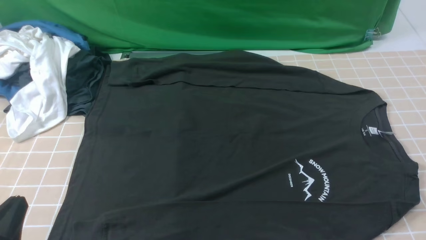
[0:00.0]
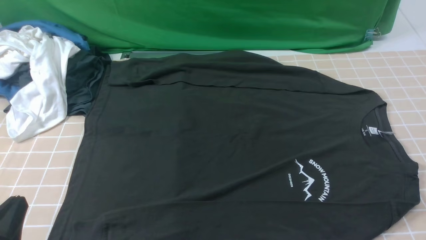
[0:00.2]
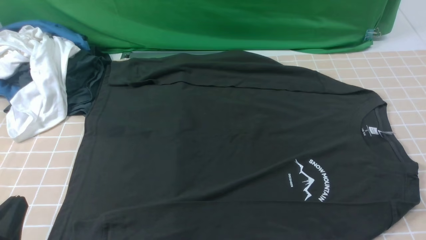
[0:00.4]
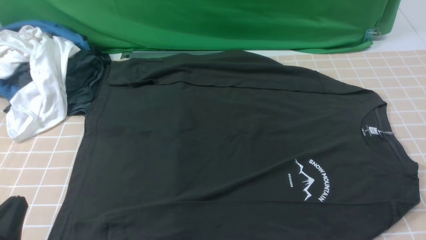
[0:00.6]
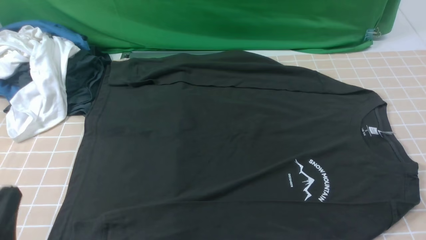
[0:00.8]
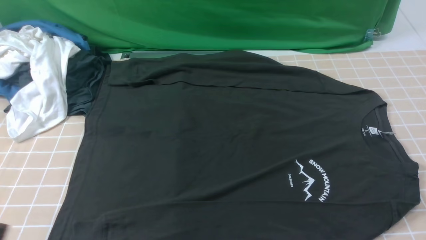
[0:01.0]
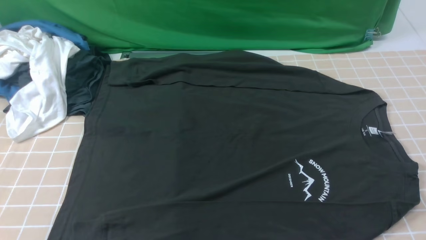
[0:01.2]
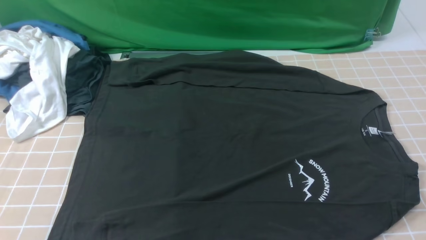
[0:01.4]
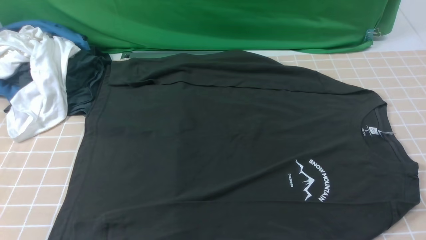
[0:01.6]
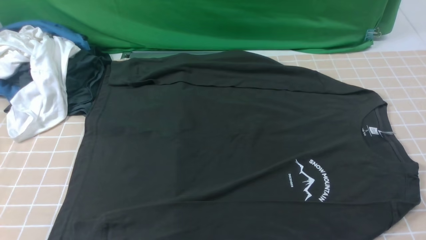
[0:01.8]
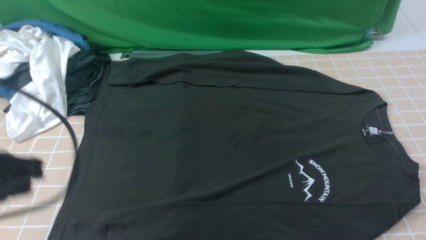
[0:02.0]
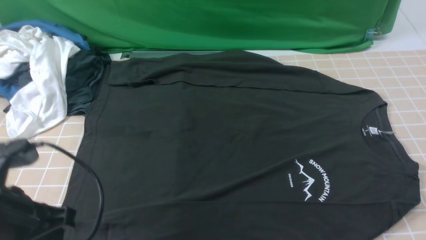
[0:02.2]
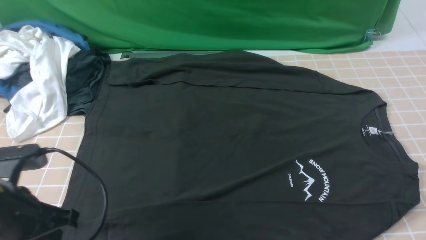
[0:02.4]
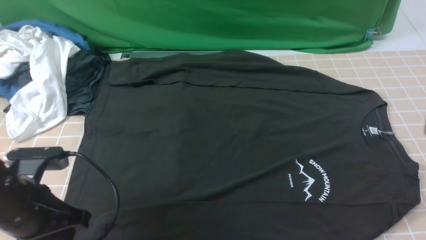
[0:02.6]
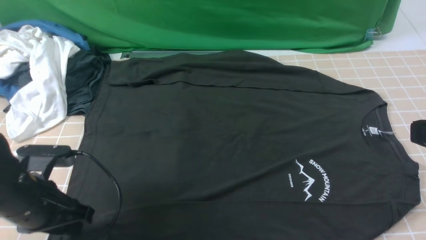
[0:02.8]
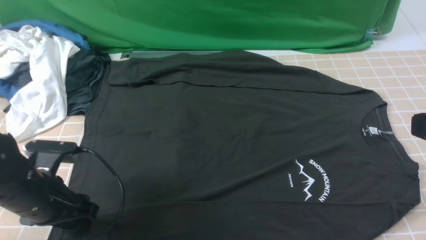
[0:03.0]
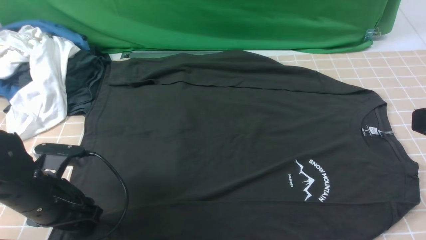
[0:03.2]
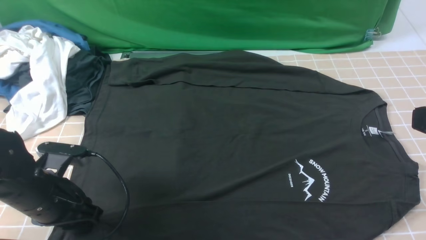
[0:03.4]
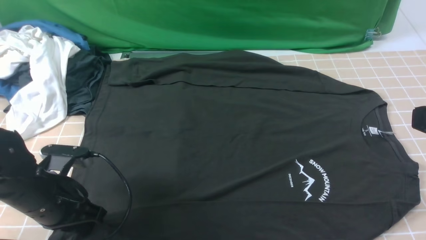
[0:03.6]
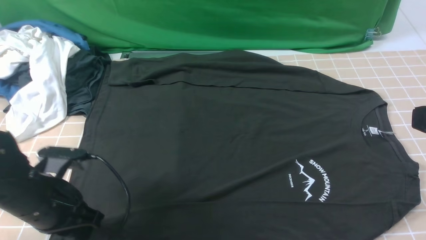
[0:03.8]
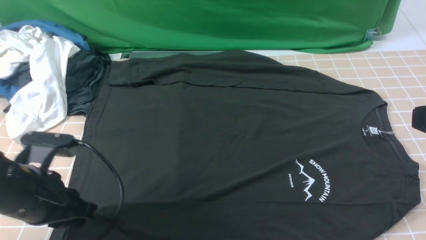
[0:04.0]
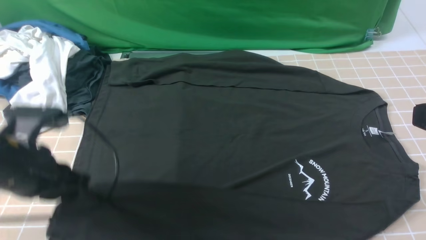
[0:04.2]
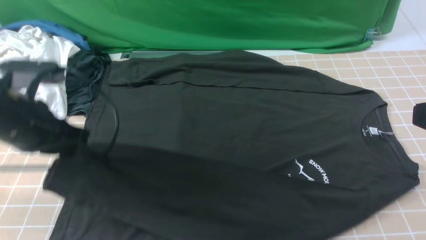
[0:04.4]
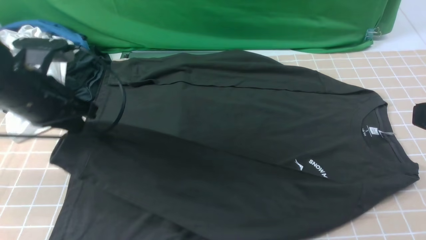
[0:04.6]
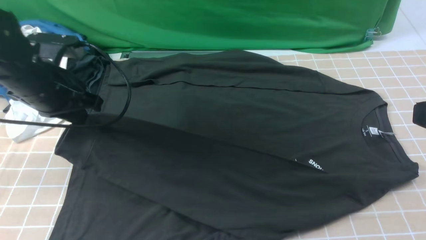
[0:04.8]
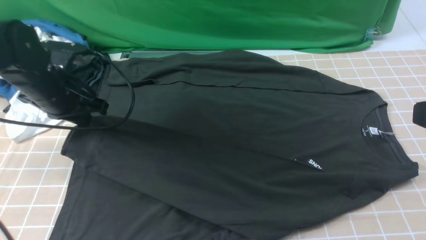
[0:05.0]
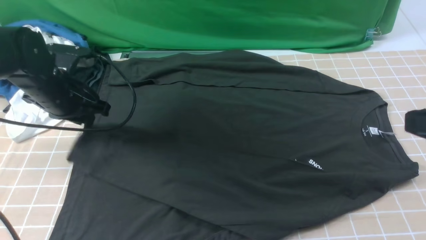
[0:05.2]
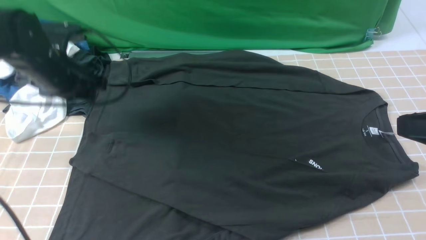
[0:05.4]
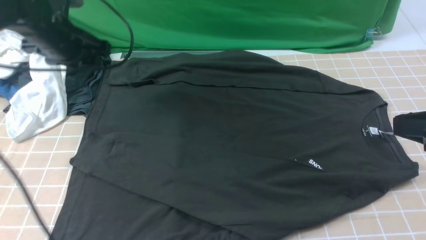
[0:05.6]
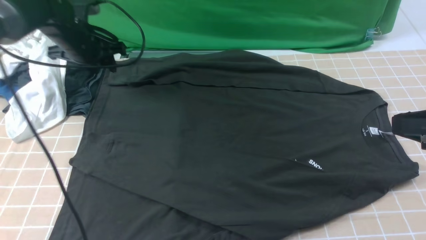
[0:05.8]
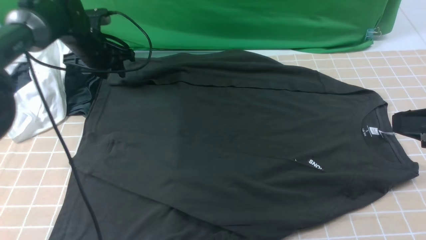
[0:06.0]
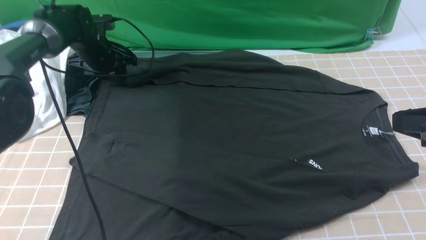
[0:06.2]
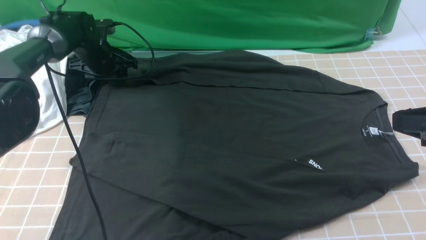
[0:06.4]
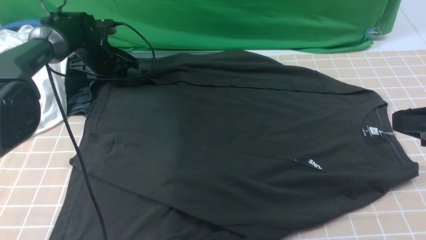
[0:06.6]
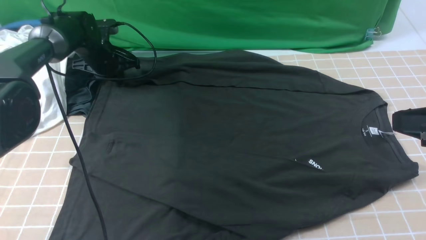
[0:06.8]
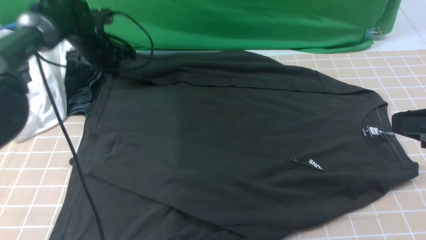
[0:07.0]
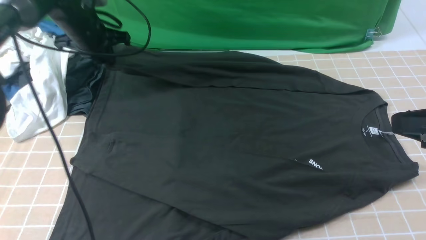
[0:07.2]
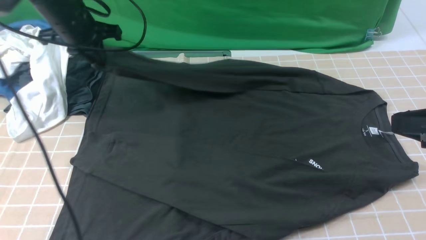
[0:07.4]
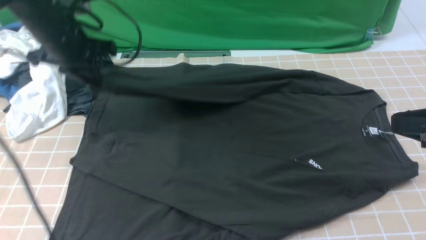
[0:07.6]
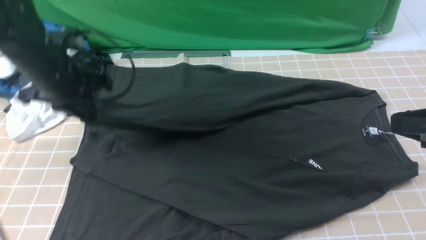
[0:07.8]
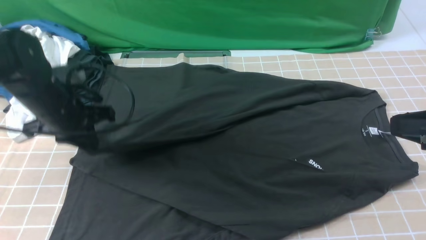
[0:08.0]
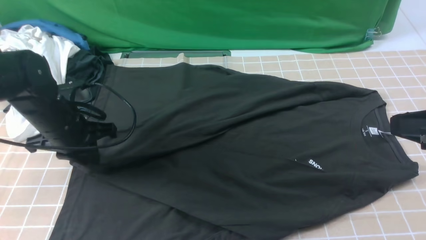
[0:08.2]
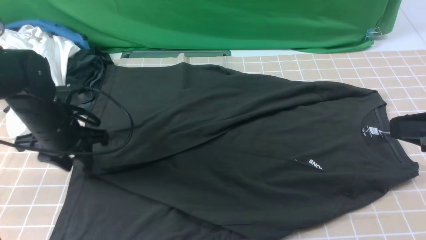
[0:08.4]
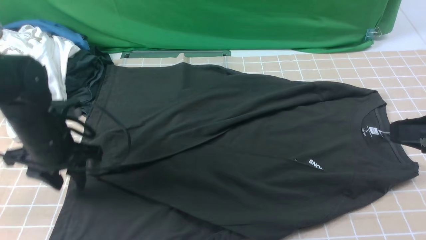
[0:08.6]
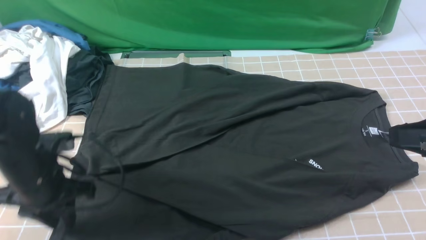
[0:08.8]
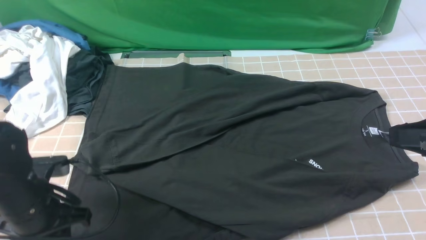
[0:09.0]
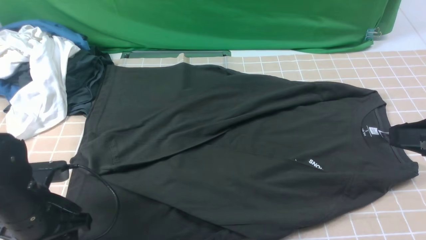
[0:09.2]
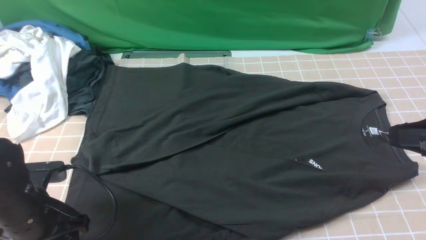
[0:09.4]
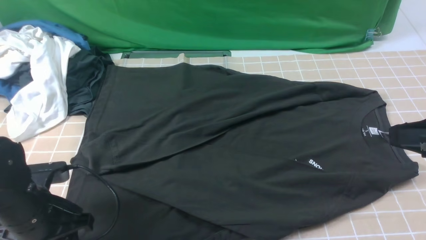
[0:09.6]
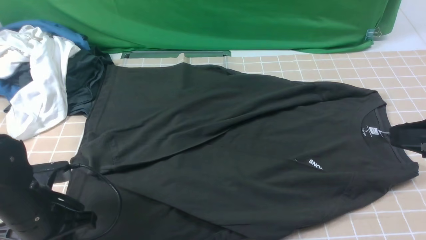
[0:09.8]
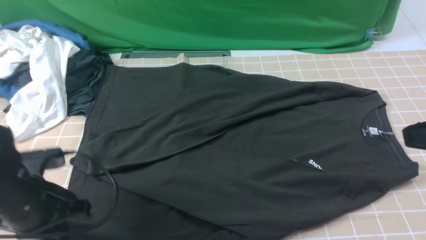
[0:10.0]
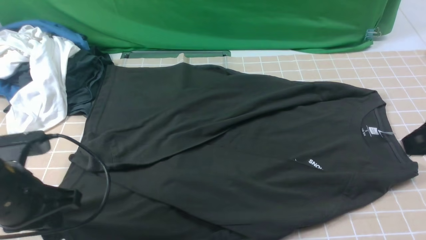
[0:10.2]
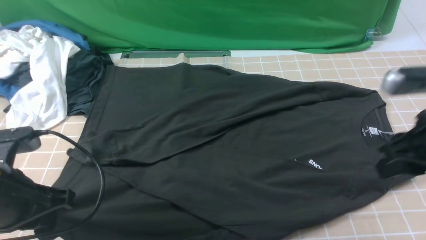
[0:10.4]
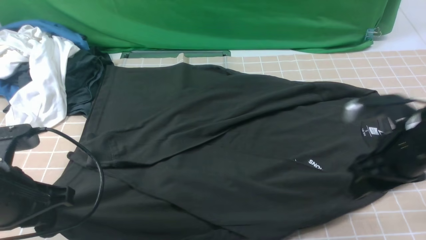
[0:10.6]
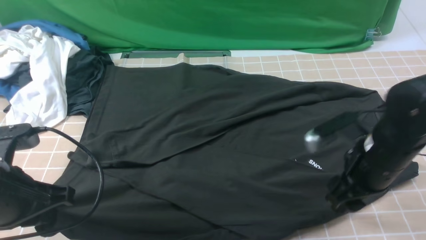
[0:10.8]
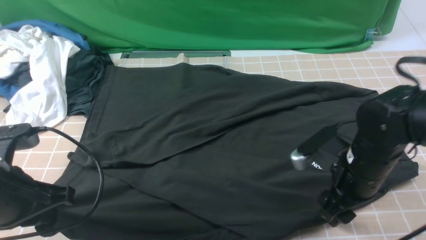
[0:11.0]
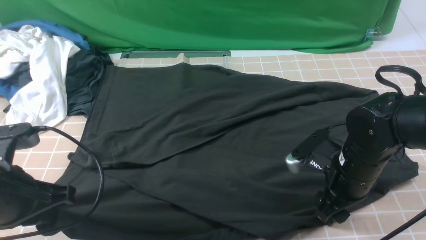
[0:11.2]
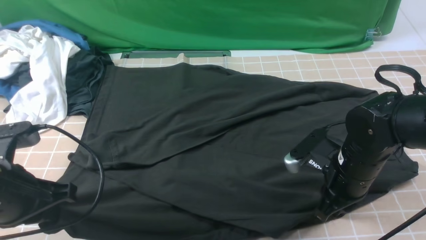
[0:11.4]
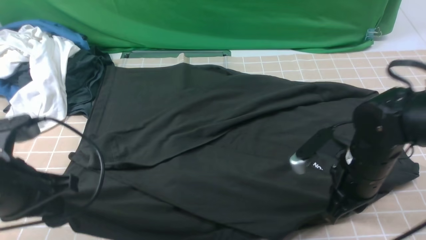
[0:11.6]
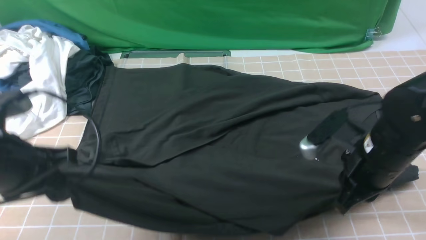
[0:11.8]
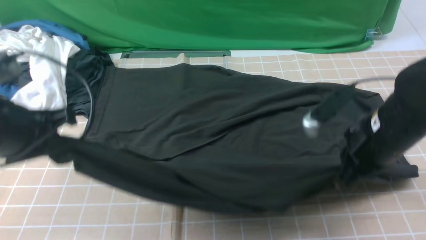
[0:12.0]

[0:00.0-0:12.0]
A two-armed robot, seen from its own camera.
Step, 0.0 to 3.6 s: use the left arm to clamp the cuff closest to it.
Step, 3.8 to 5.2 s: use the left arm to drag and place the cuff at the centered position on the left edge of the fabric.
Step, 5.4 to 6.8 s: use the left arm to clamp the cuff farthest from it.
Step, 7.0 to 8.4 s: use the left arm to drag and drop the cuff onto the cuff closest to the left arm.
Step, 8.6 to 11.4 s: use both arms simultaneously to clamp the lower edge of the clothing fabric.
0.0 to 1.6 s: The left gripper goes about 15 cm upward.
1.6 to 3.0 s: The left gripper travels downward and forward by roughly 25 cm, and opens. Meanwhile the right gripper moves upward and forward, about 15 cm, and closes up.
3.0 to 4.4 s: The left gripper moves upward, approximately 10 cm, and closes.
4.4 to 6.0 s: The left gripper goes about 25 cm forward, and opens its fingers.
6.0 to 7.6 s: The left gripper moves backward and upward, about 15 cm, and closes.
7.6 to 9.0 s: The left gripper goes approximately 20 cm backward and downward, and opens up.
9.0 to 10.4 s: The right gripper travels forward and downward by some 10 cm, and opens its fingers. The left gripper travels upward by roughly 5 cm, and closes its fingers.
10.4 to 12.0 s: The left gripper goes approximately 10 cm upward and forward. The right gripper goes some 5 cm to the left, reaches approximately 10 cm downward, then returns, and closes up.

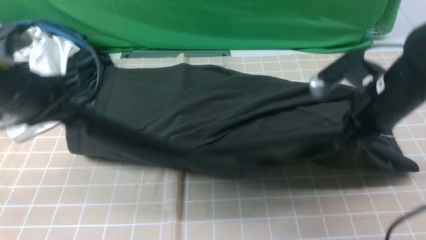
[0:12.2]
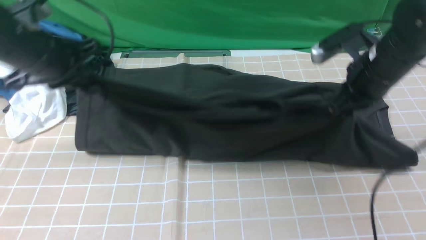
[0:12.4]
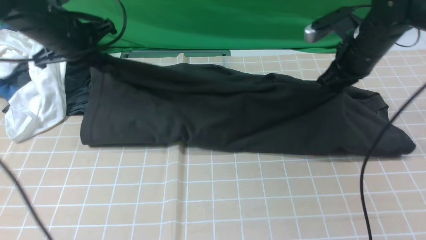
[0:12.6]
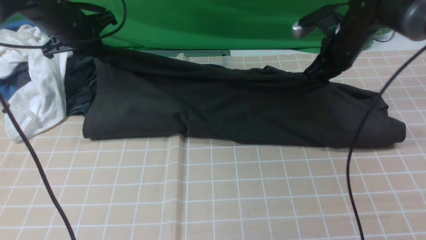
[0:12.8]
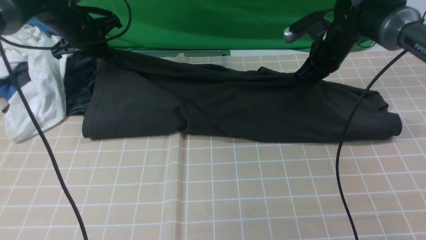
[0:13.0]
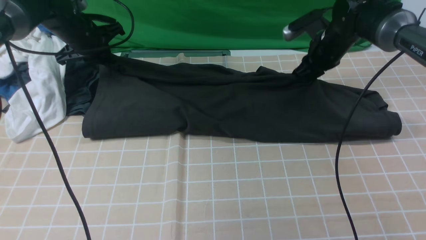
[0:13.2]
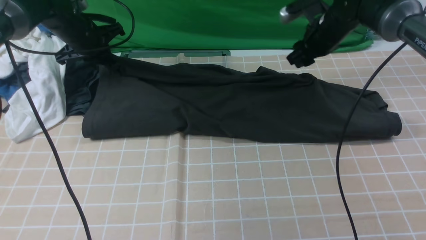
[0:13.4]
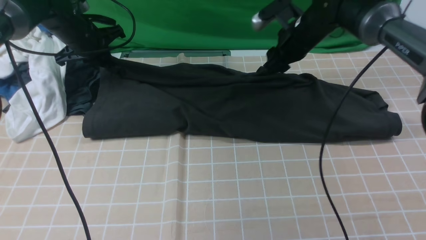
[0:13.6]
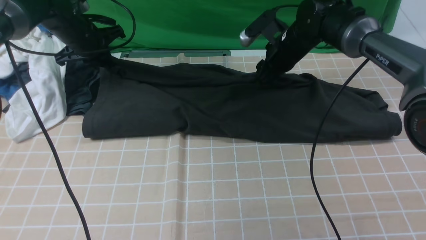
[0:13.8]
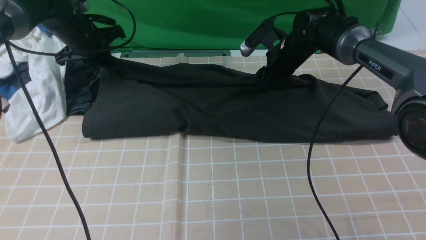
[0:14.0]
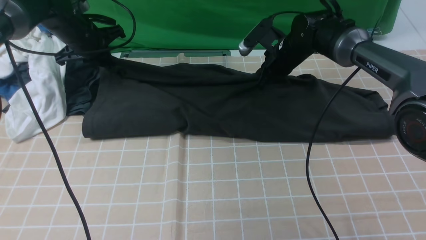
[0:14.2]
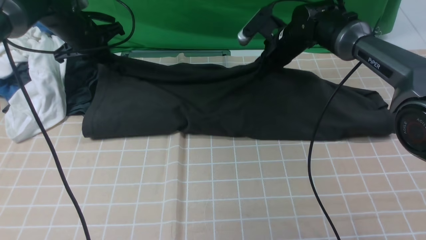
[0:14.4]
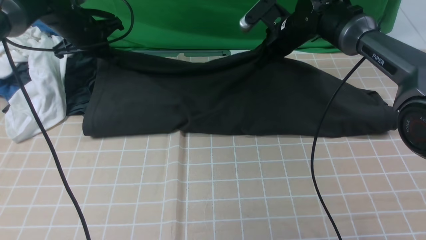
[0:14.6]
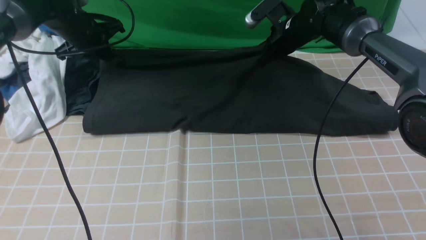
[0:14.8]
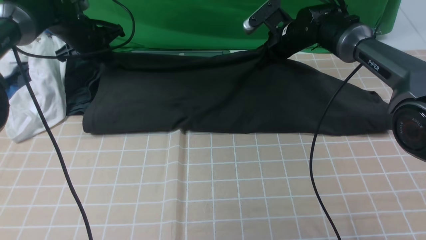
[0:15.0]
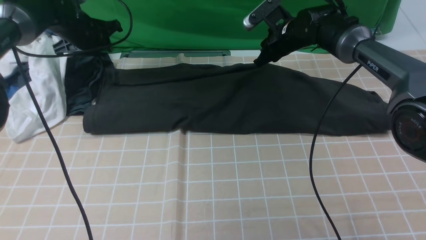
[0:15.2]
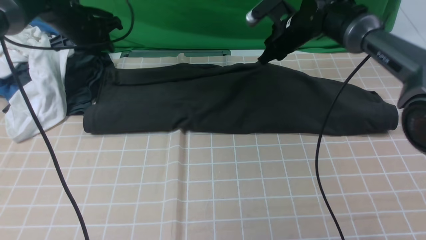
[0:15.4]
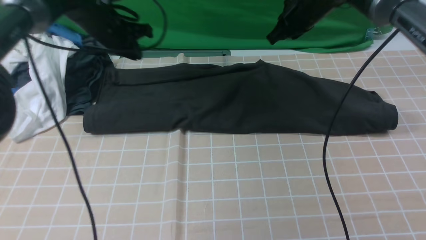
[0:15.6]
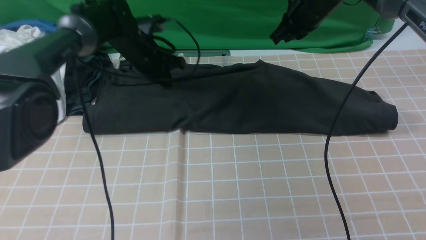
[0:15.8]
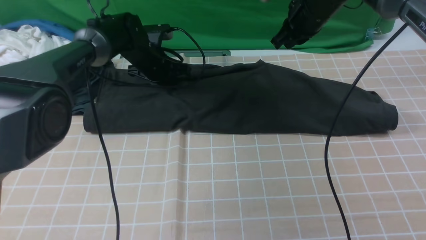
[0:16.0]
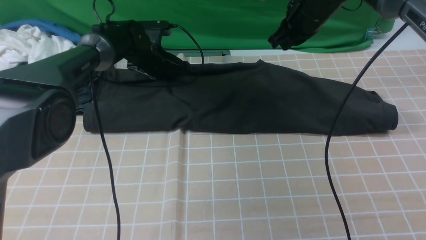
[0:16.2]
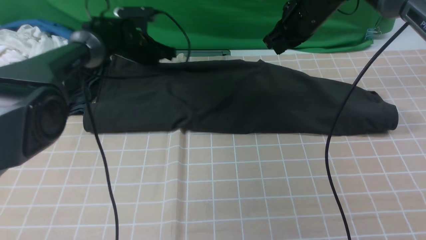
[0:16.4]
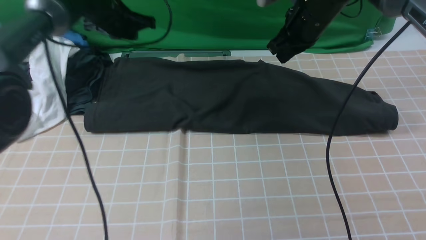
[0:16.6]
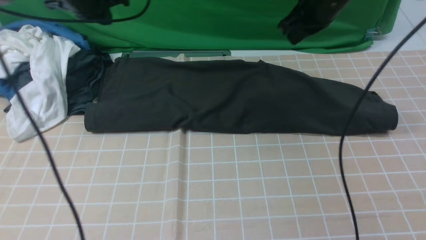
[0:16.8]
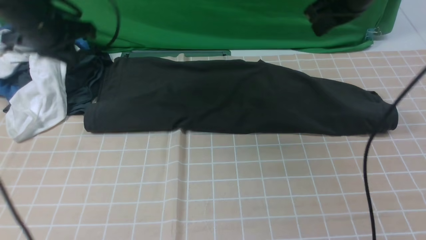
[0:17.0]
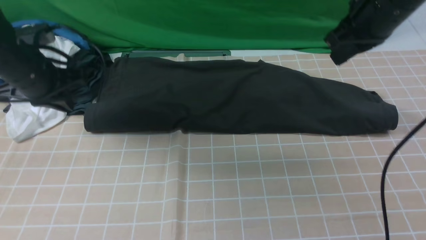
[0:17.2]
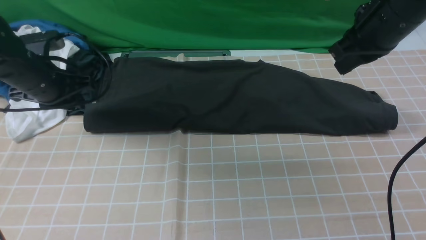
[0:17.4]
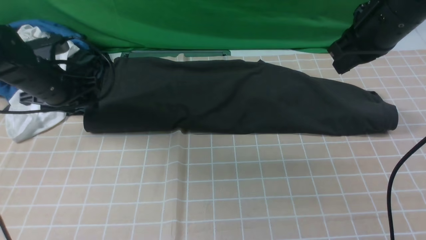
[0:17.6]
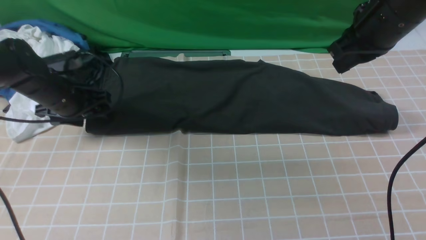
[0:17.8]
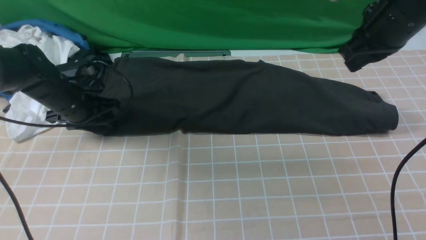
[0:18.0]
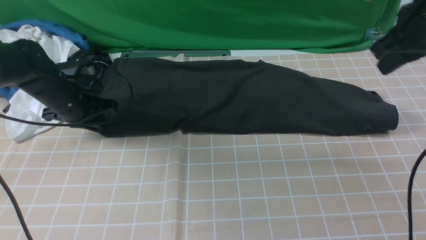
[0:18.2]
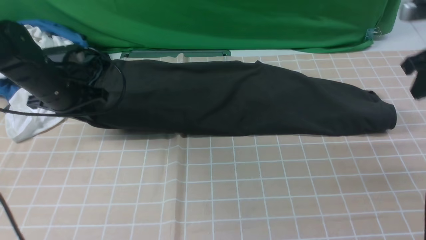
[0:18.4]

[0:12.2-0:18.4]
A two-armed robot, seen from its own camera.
Step, 12.2 to 15.2 s: use both arms to drag the lower edge of the fabric forward and fold it over the upper edge.
12.2 to 13.8 s: The grippers both shift forward by roughly 20 cm. The right gripper opens its fingers.
13.8 to 15.4 s: The right gripper closes up. The left gripper opens its fingers.
15.4 to 16.8 s: The left gripper goes some 5 cm upward, and closes; the right gripper is displaced upward and backward by about 15 cm.
16.8 to 18.4 s: The left gripper travels downward and backward by some 15 cm, and opens, then closes once more. Meanwhile the right gripper travels to the right and backward by approximately 15 cm.
